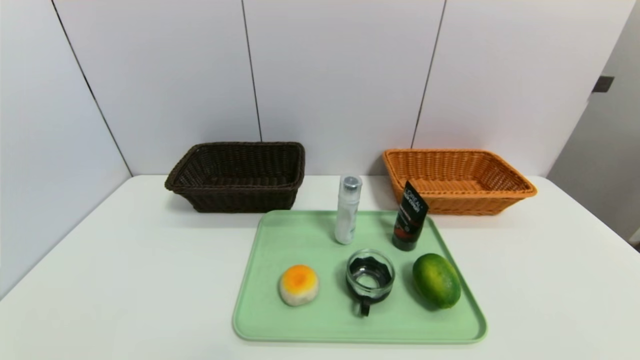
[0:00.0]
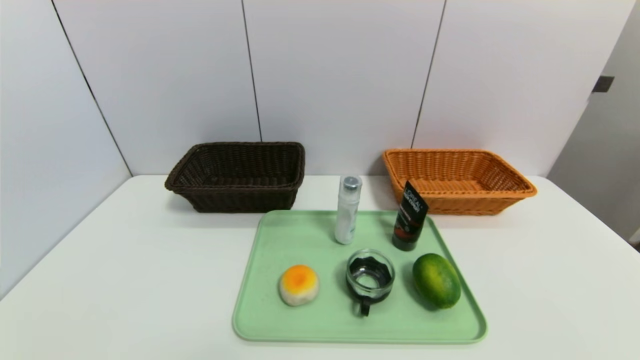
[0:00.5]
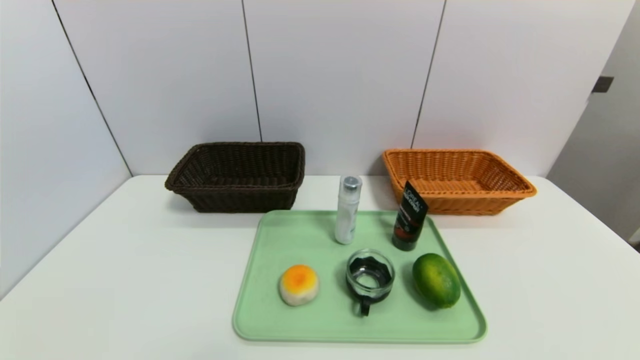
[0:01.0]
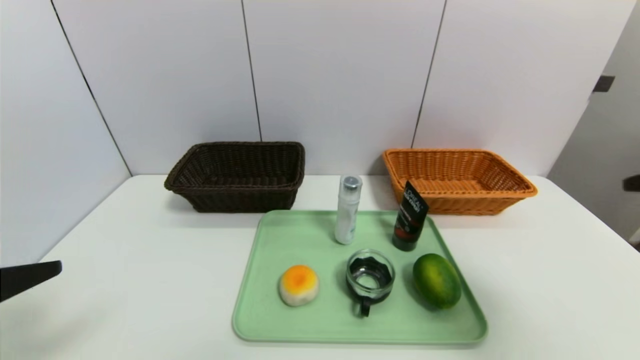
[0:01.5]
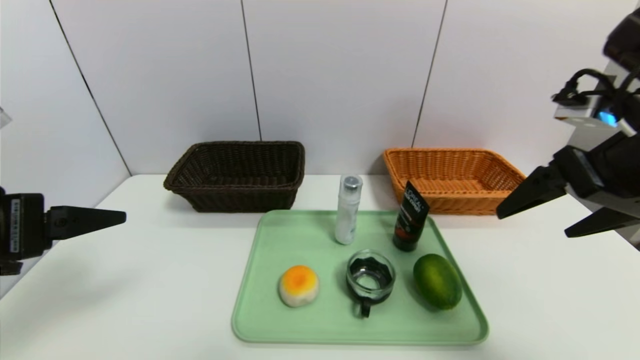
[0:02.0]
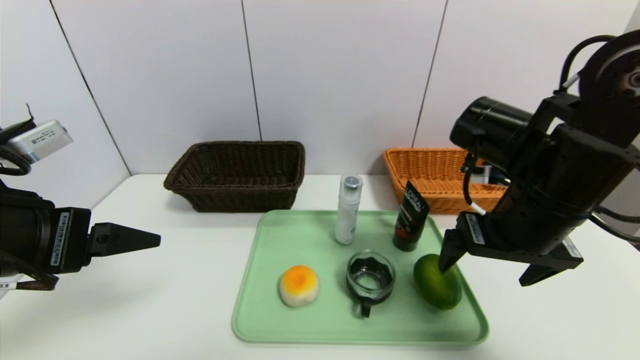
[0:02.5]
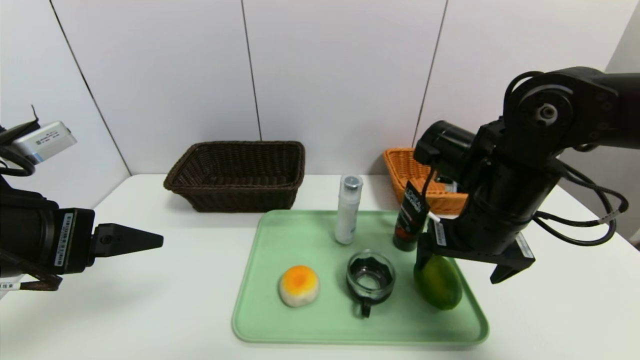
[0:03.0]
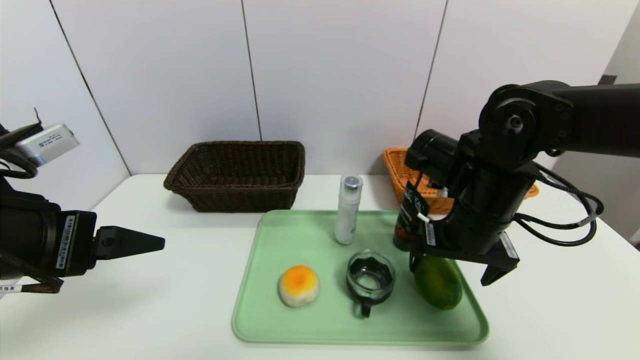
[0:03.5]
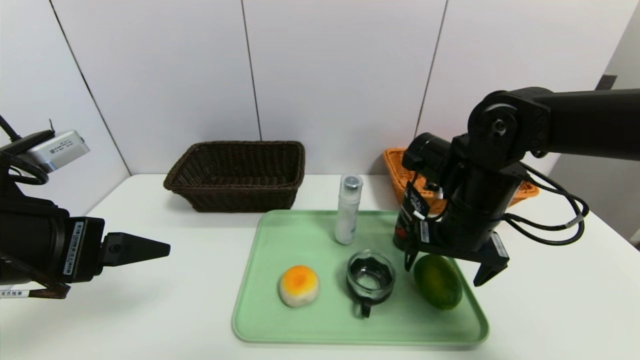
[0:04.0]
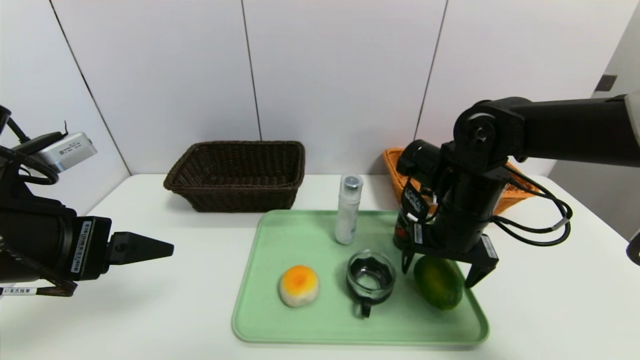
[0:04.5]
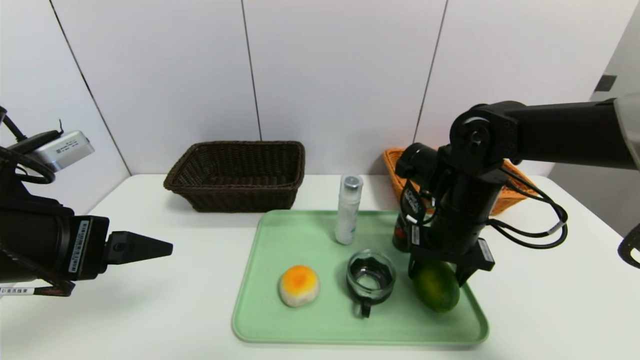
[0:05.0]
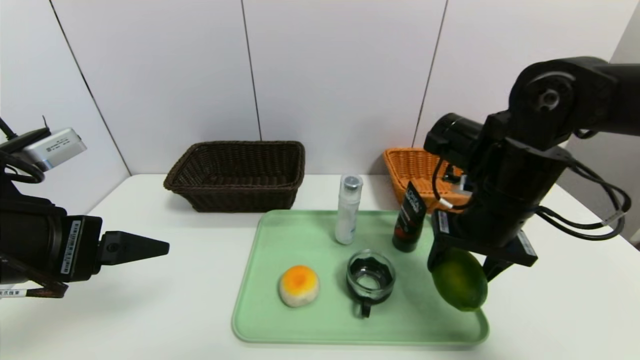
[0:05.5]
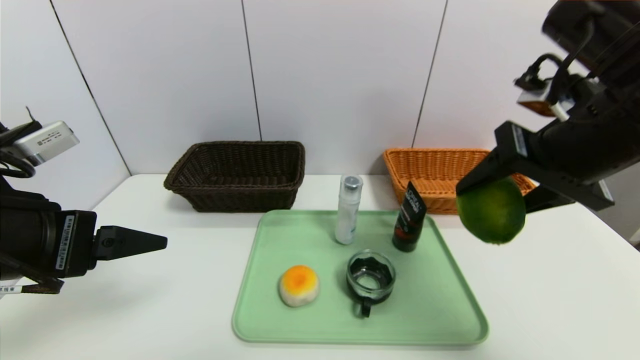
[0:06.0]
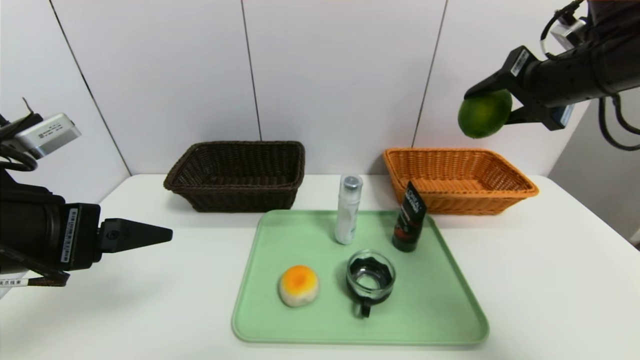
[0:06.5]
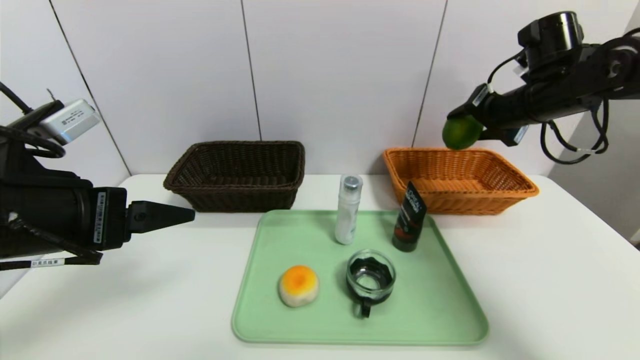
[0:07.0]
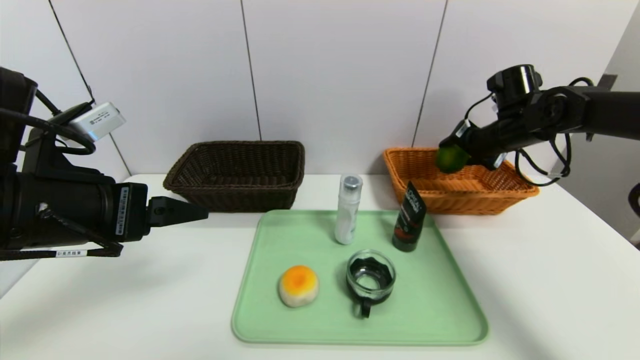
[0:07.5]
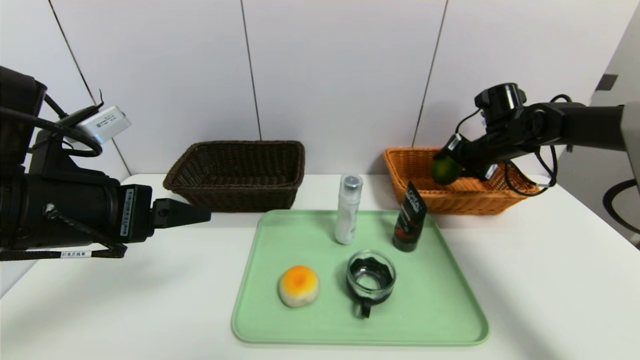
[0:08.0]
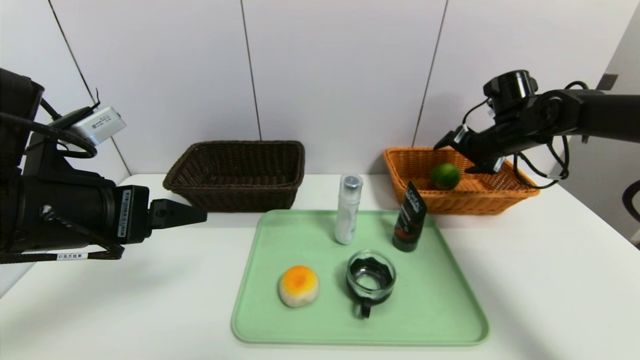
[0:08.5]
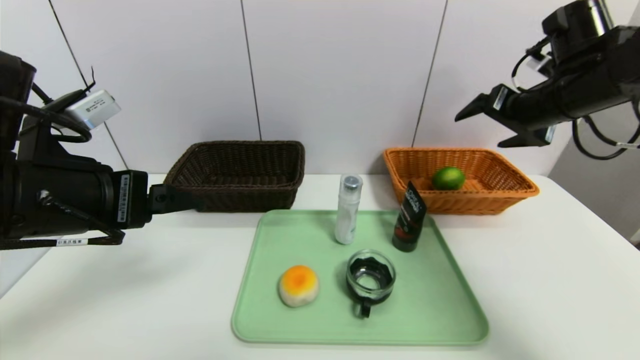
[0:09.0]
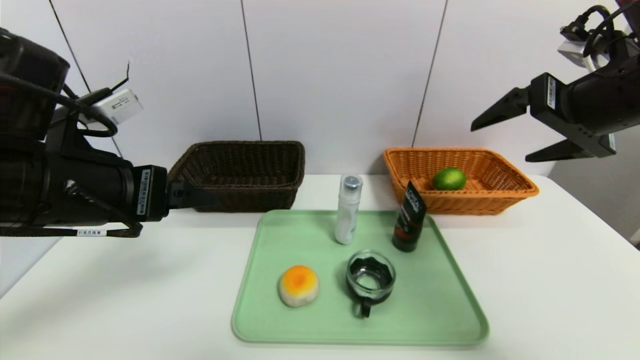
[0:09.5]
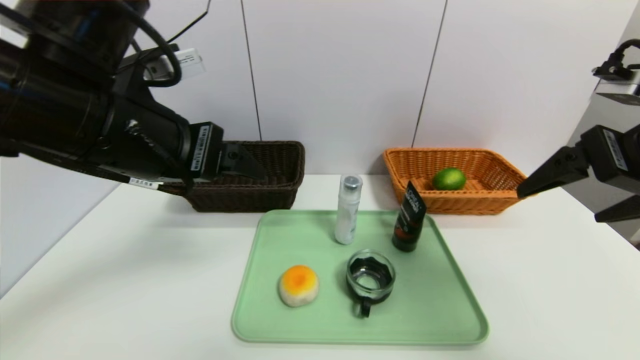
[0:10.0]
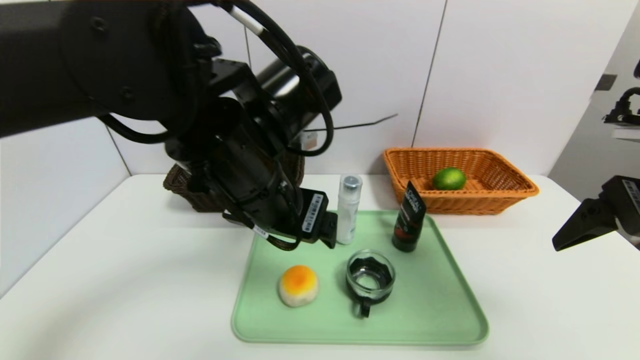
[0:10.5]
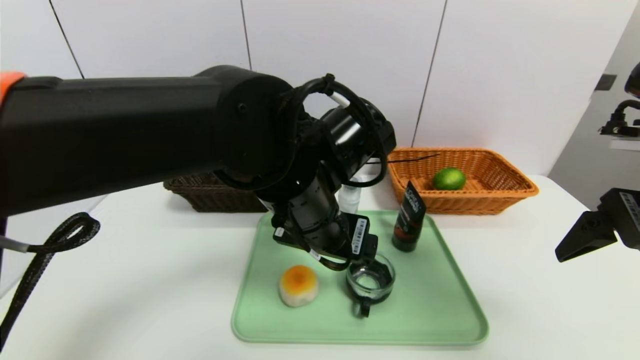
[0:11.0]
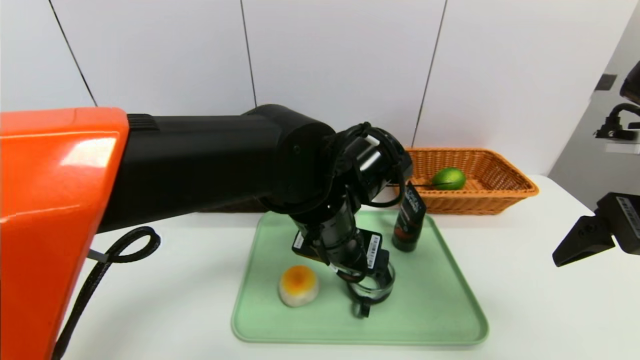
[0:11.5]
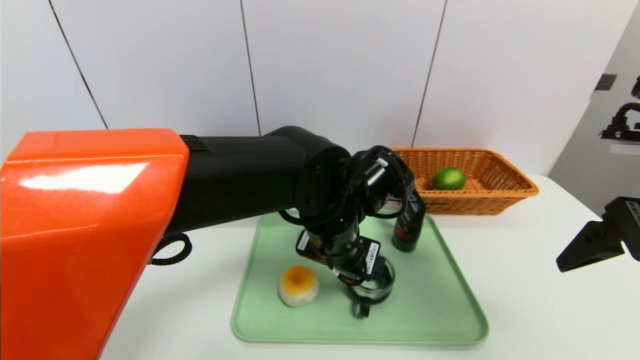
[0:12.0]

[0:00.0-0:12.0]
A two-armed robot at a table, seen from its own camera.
Task of the whole recording: place the food in the right basket with the right gripper, and place the non food items in the left basket with the left gripper.
Step, 0:00.0 to 0:08.5: Grasp the lime and put it in the right basket.
0:00.0 to 0:02.0: Both grippers move upward and forward, approximately 30 cm.
0:02.0 to 0:04.0: The right gripper is displaced downward, to the left and forward by roughly 15 cm.
0:04.0 to 0:06.0: The right gripper shifts roughly 15 cm upward and backward, and closes up.
0:06.0 to 0:08.0: The right gripper goes about 25 cm forward and downward.
0:08.0 to 0:10.0: The right gripper is displaced backward and upward by approximately 30 cm. Meanwhile the left gripper heads to the right and upward, covering some 10 cm.
0:10.0 to 0:12.0: The left gripper moves to the right and downward, approximately 25 cm.

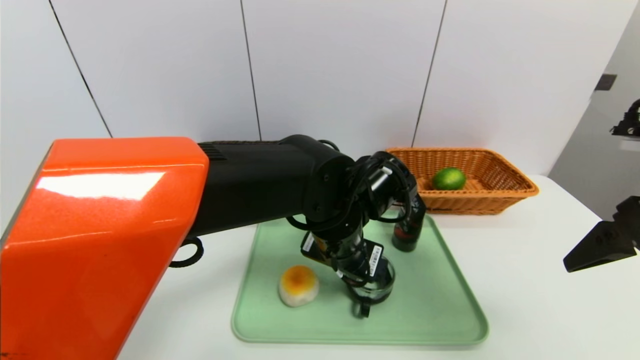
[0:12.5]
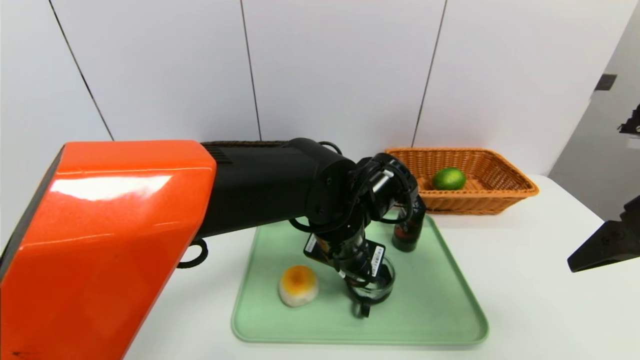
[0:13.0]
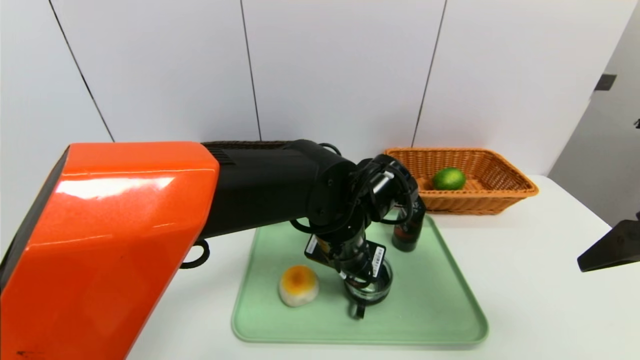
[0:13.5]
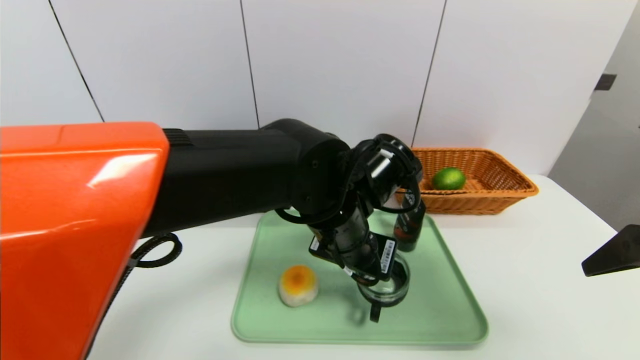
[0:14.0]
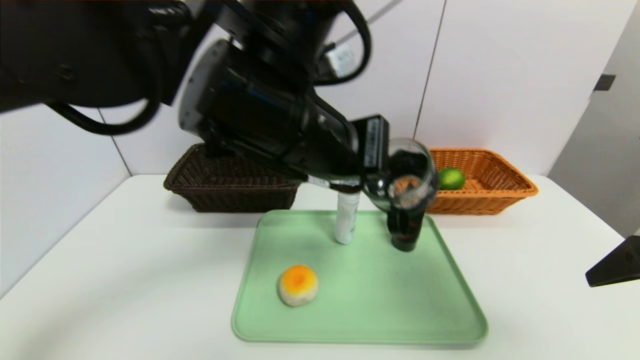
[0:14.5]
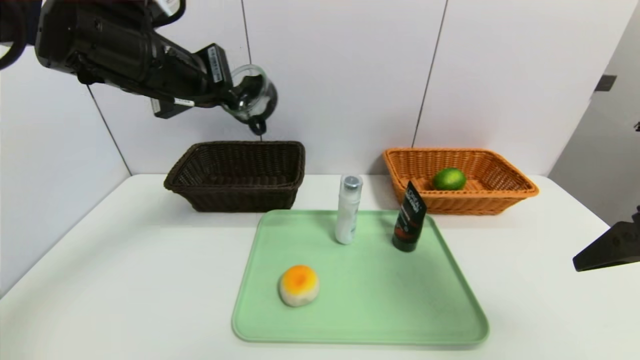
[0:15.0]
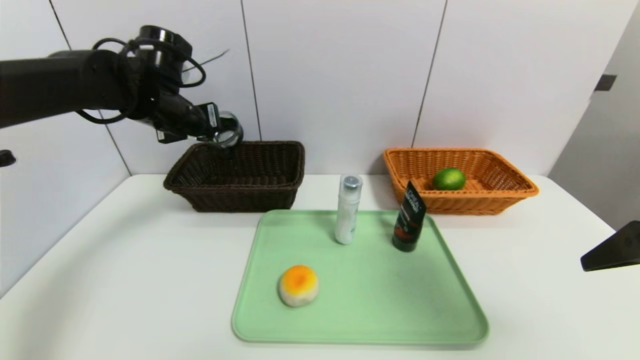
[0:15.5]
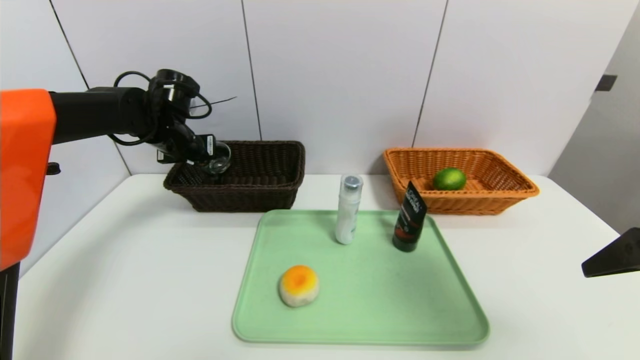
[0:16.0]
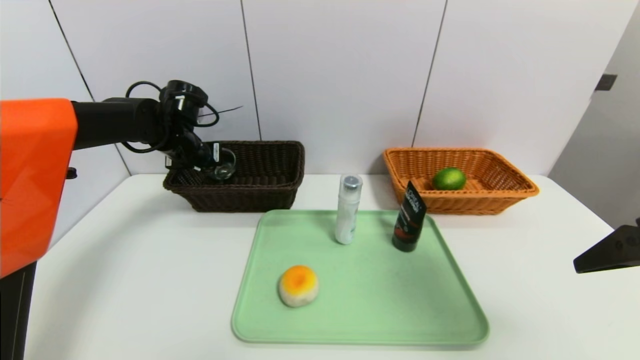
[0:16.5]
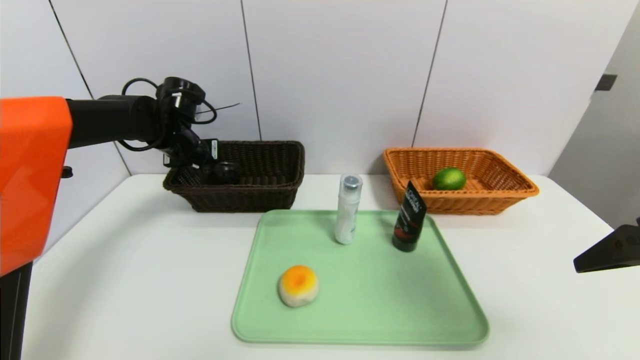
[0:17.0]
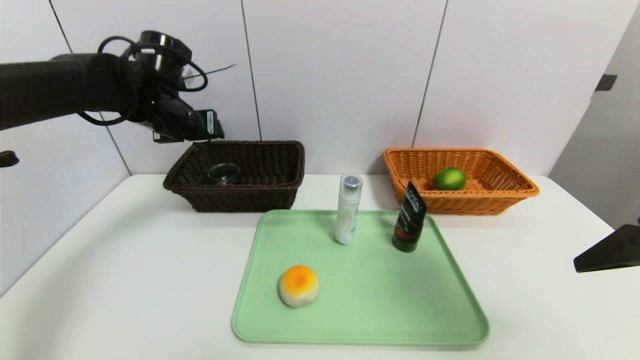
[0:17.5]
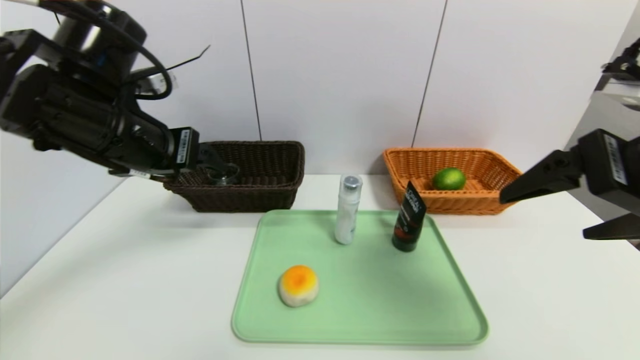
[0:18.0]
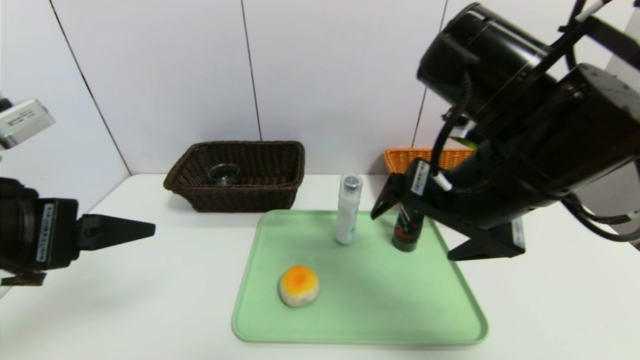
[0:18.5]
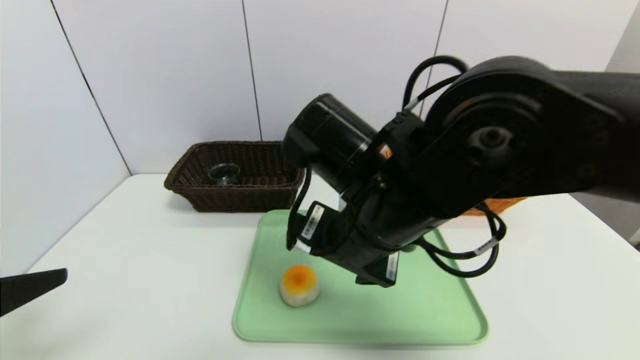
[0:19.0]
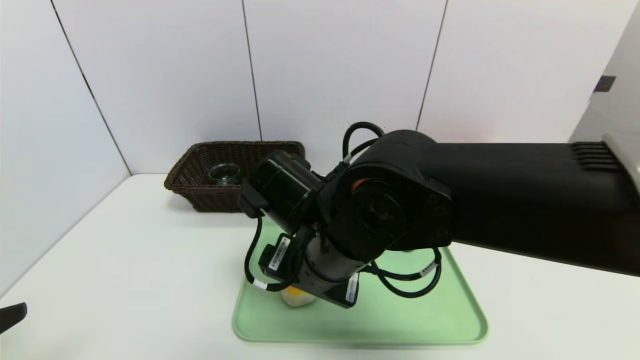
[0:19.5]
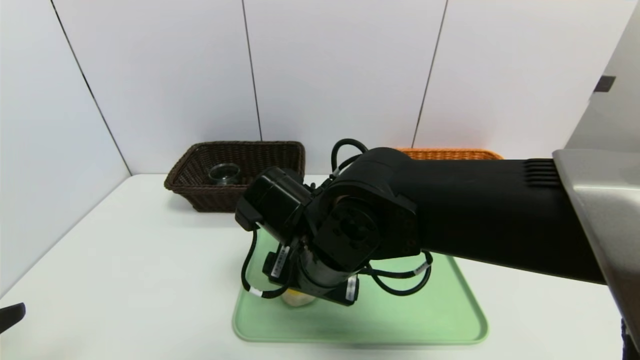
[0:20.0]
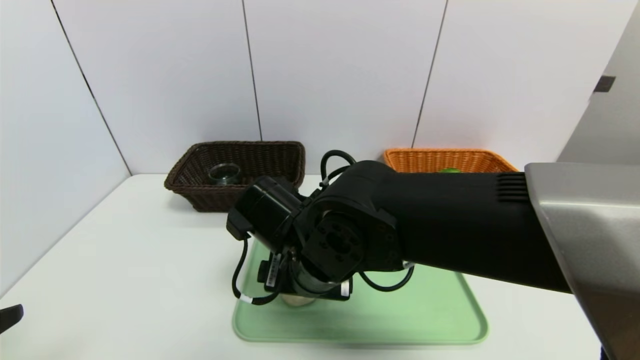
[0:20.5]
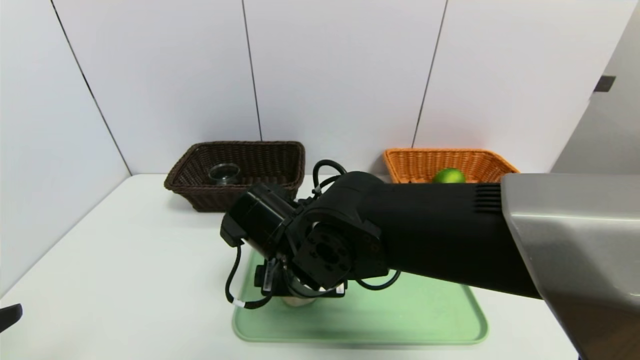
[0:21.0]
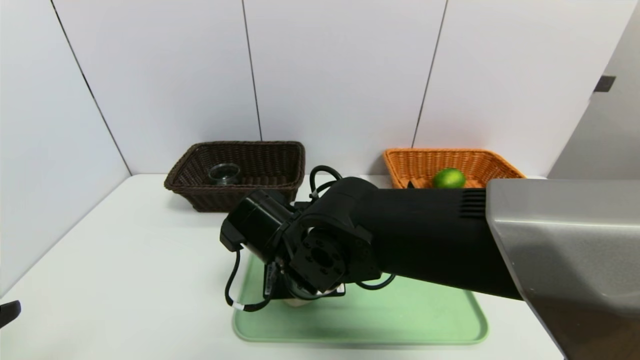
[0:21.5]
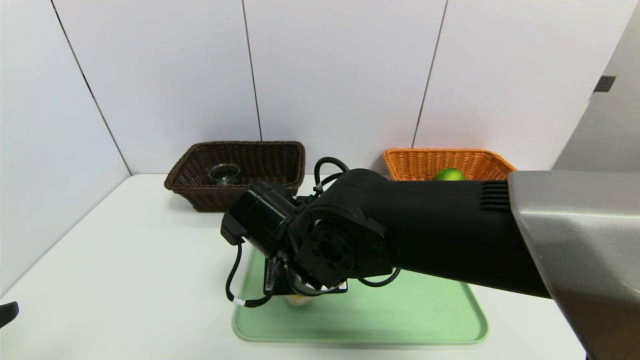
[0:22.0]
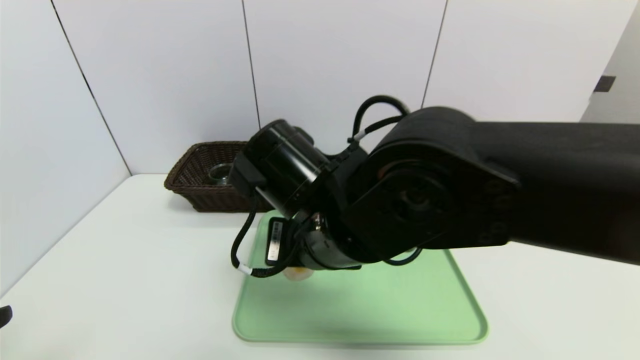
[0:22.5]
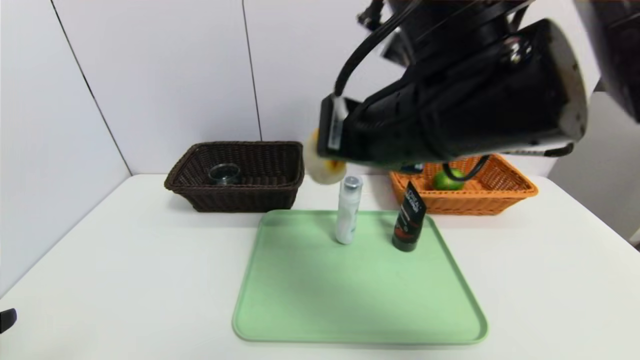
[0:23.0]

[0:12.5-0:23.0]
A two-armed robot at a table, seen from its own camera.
Task of the whole recording: place the food in the right basket with the right gripper, and place the non food items in the left basket with the left gripper.
Step, 0:12.5 to 0:17.0: Grasp the black glass cup and put it in the left basket.
0:12.5 to 0:14.5: The left gripper travels upward and to the left by about 15 cm, and closes.
0:14.5 to 0:16.5: The left gripper shifts about 30 cm forward, to the left and downward.
0:16.5 to 0:19.0: The right gripper goes approximately 25 cm to the left; the left gripper travels backward by some 40 cm, and opens.
0:19.0 to 0:21.0: The right gripper moves downward and to the left, some 10 cm.
0:21.0 to 0:23.0: The right gripper moves upward and to the right, roughly 20 cm, and closes.
